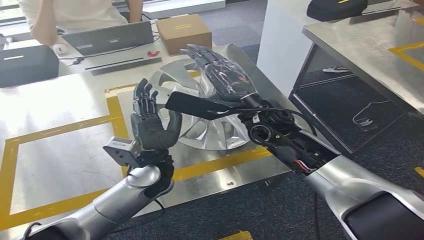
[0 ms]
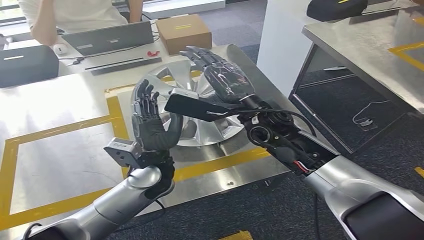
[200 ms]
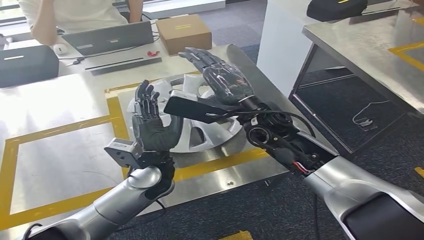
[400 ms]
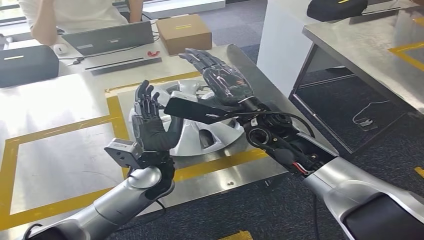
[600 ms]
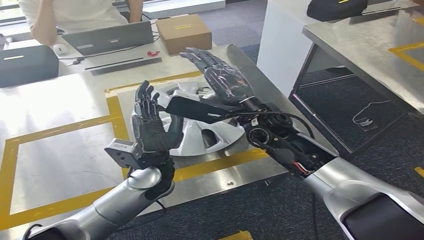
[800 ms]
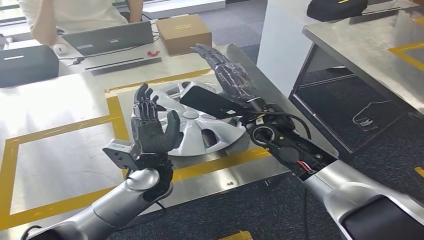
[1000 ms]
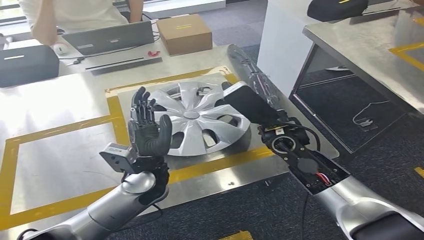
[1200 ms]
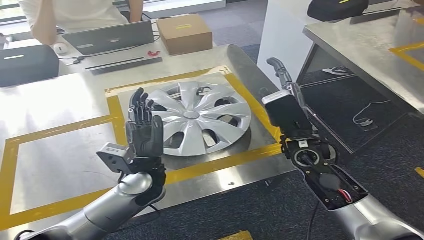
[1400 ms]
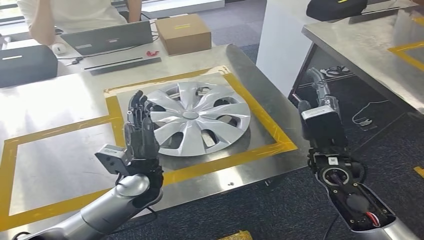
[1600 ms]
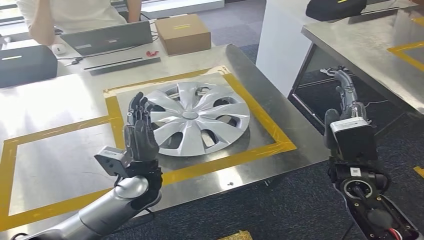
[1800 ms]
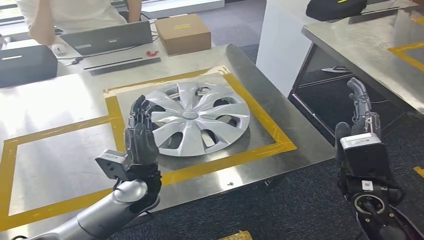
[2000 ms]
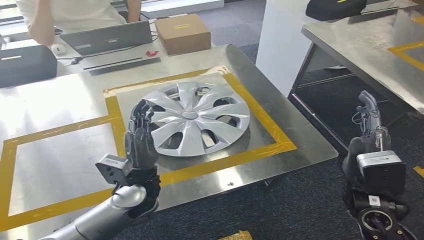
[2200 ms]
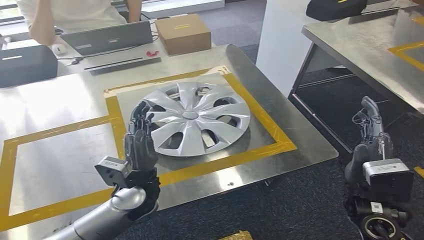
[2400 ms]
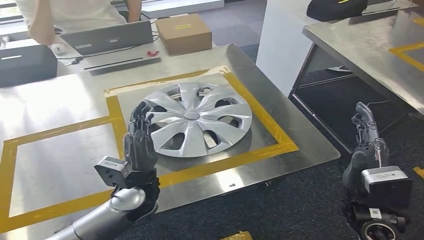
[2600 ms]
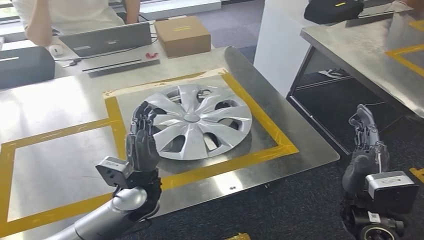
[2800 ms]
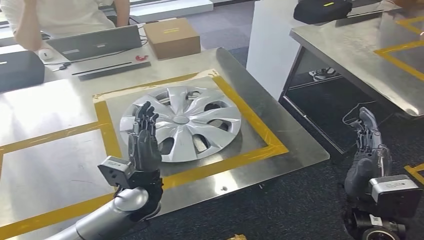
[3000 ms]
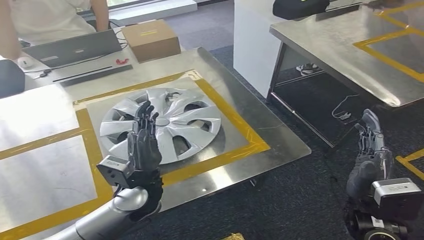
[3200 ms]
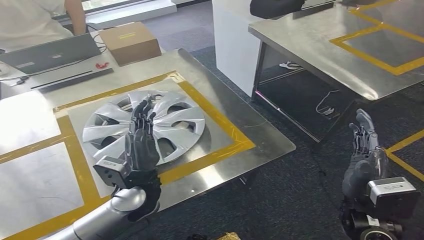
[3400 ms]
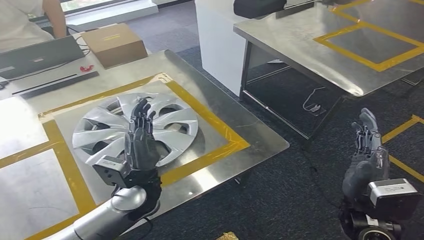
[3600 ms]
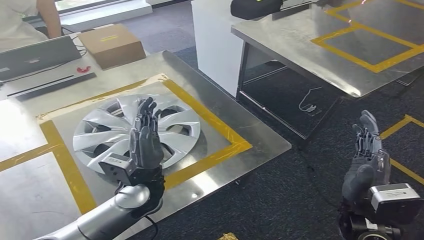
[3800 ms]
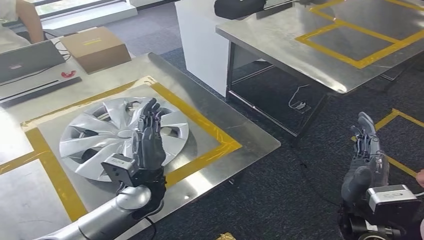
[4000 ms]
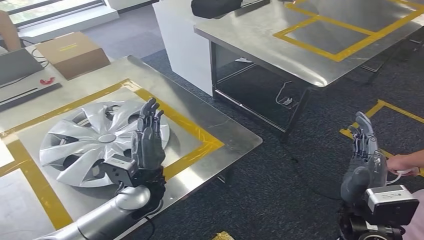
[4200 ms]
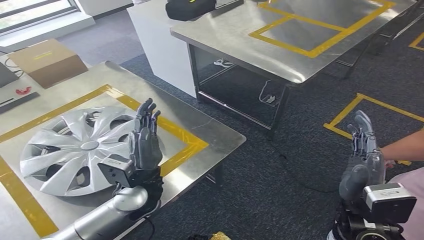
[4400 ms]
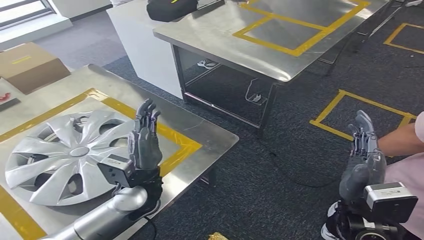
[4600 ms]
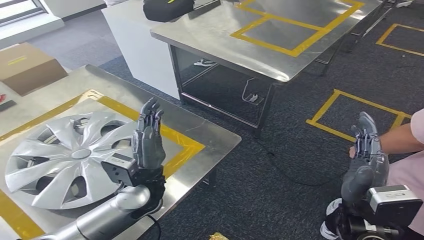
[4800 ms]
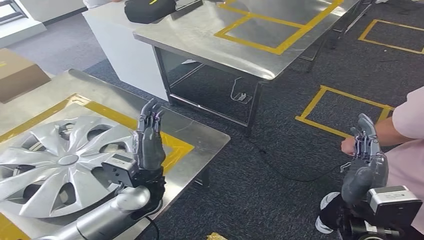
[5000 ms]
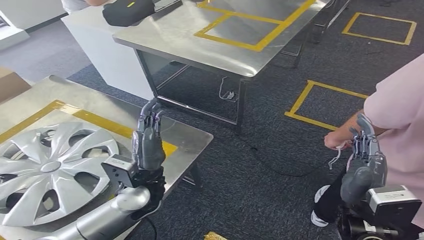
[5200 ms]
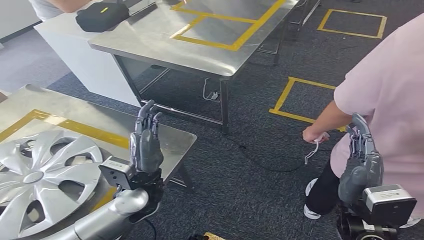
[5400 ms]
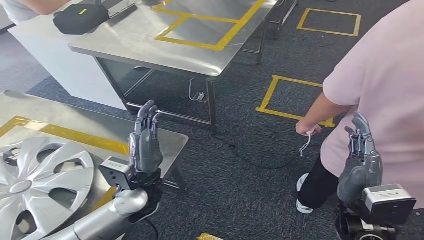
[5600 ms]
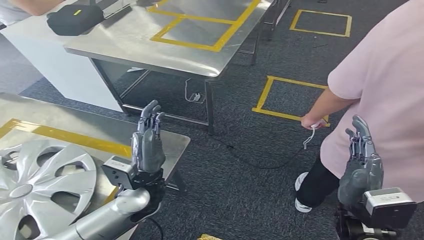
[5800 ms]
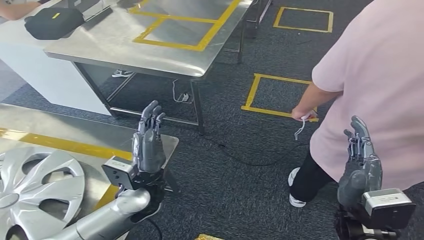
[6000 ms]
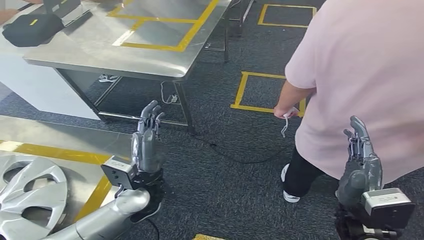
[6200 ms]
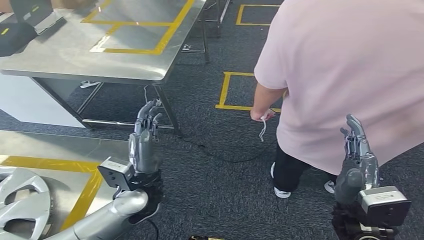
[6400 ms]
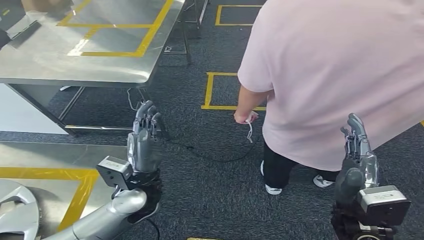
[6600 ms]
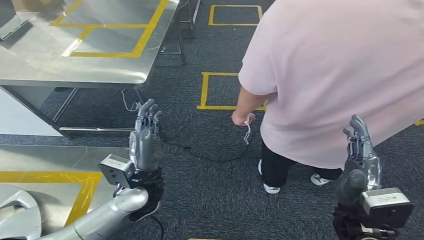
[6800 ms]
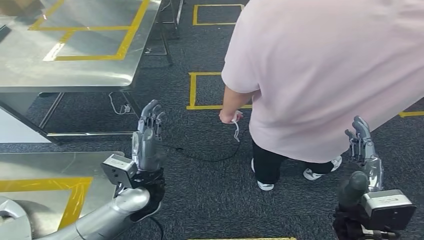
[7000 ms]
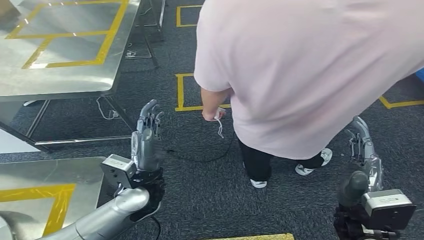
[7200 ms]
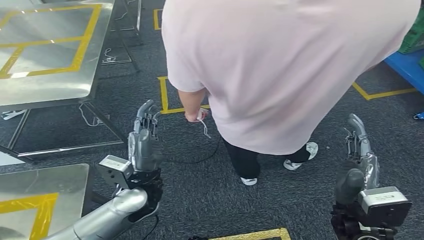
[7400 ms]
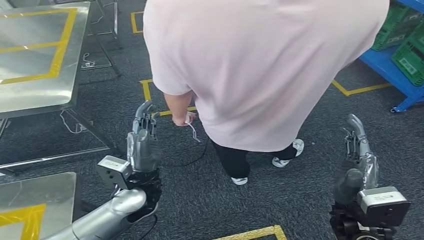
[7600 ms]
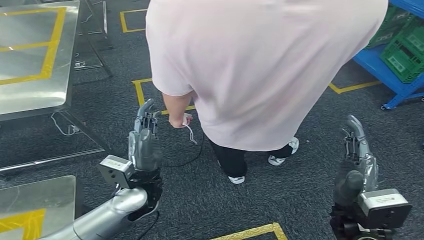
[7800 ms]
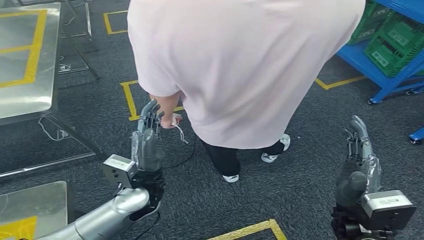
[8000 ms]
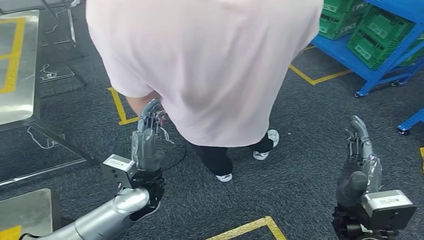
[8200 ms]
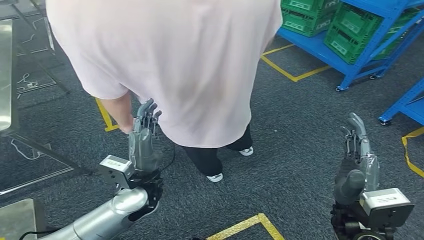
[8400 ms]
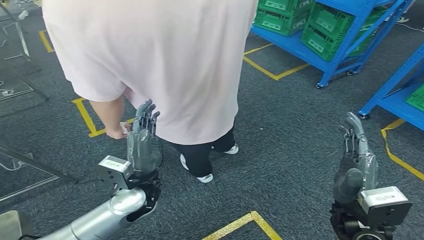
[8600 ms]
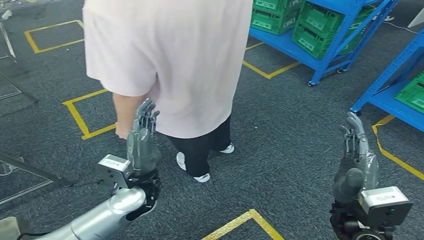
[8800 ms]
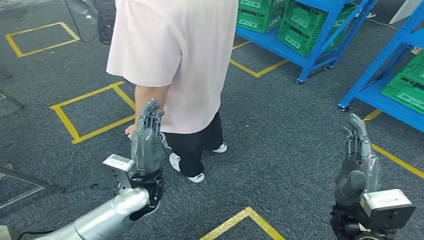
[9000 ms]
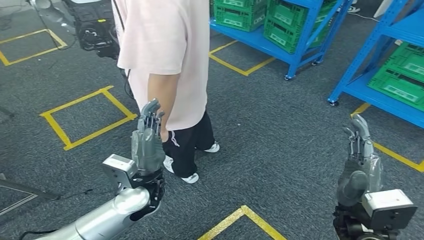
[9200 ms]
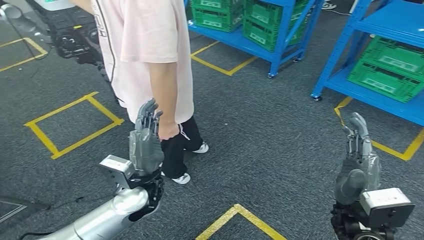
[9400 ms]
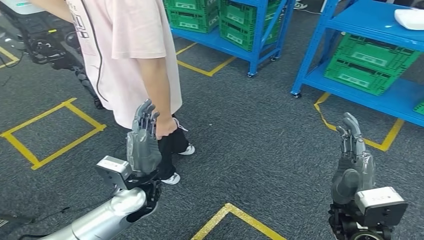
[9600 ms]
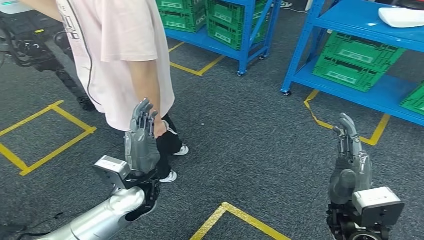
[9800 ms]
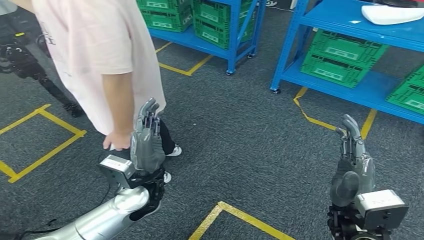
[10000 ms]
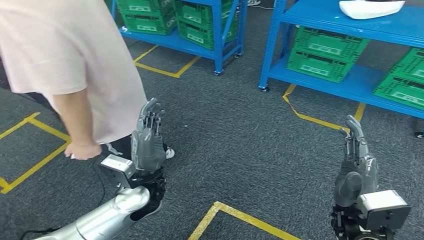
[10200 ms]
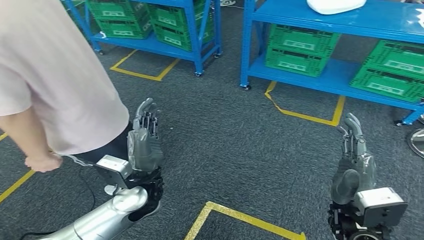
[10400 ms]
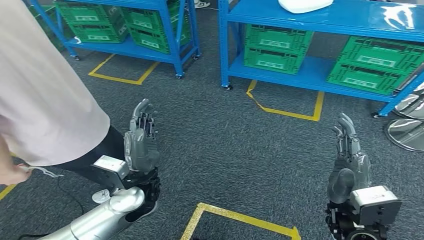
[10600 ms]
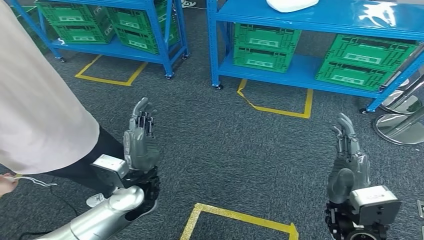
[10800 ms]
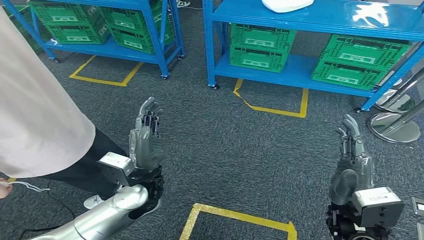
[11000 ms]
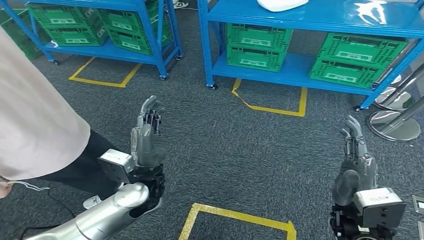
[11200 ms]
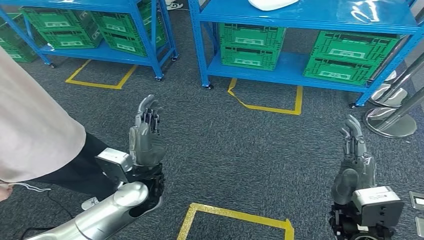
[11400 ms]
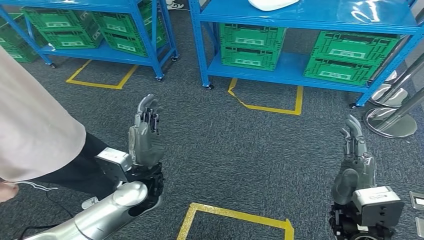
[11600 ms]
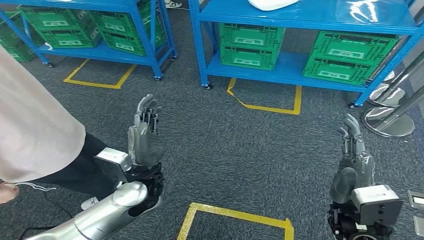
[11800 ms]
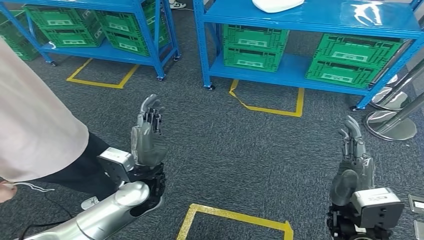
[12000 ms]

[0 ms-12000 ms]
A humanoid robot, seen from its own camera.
Step, 0 ms to 2400 ms: Insert the small component into the corresponding slot on the workbench.

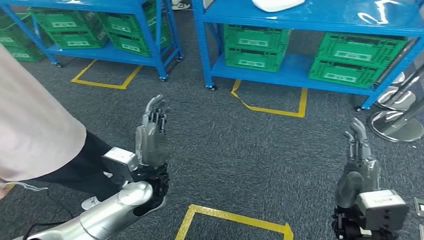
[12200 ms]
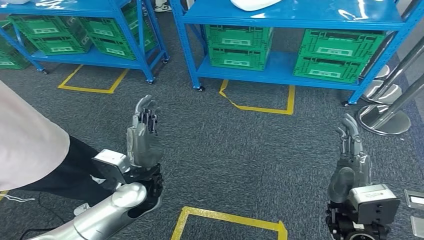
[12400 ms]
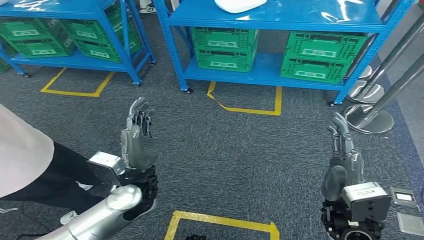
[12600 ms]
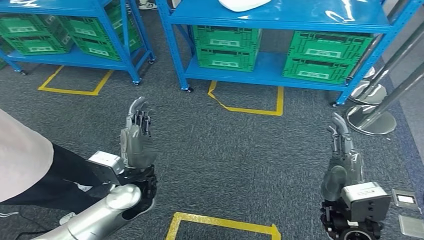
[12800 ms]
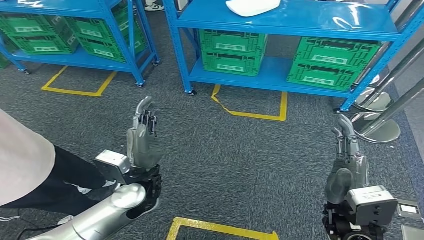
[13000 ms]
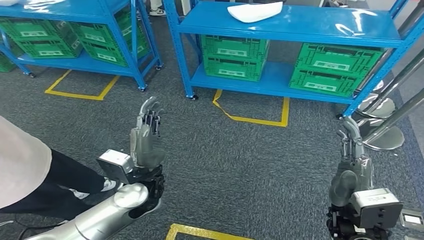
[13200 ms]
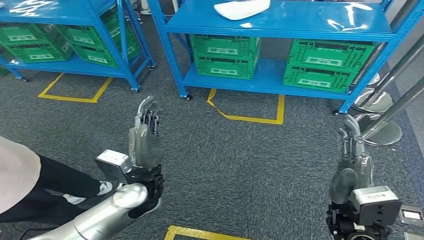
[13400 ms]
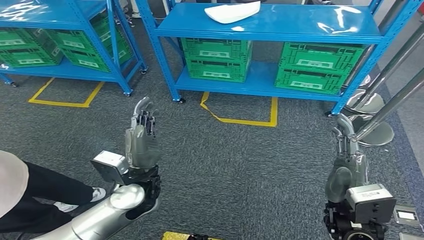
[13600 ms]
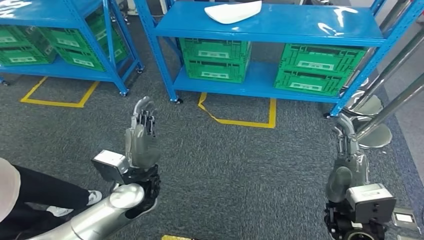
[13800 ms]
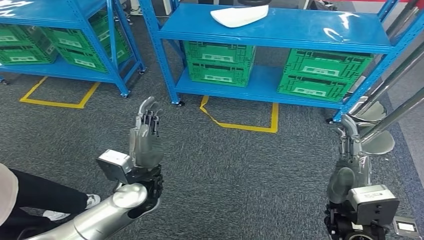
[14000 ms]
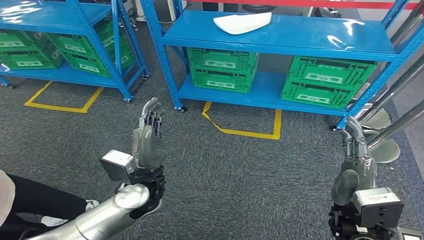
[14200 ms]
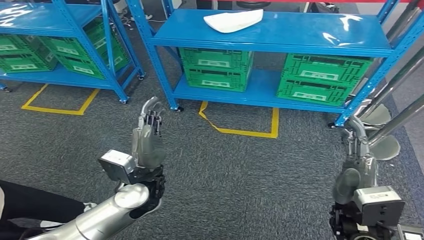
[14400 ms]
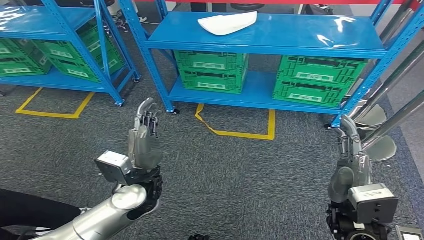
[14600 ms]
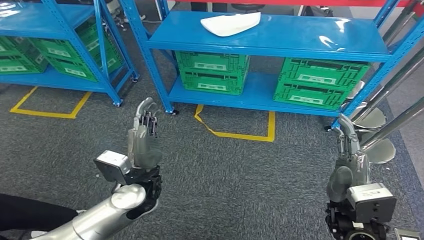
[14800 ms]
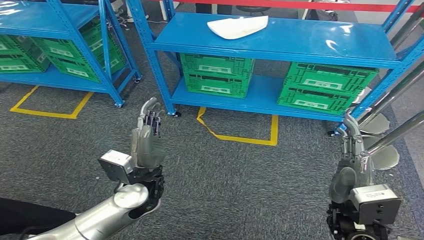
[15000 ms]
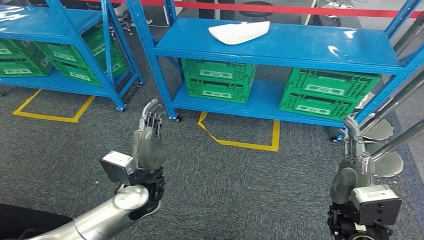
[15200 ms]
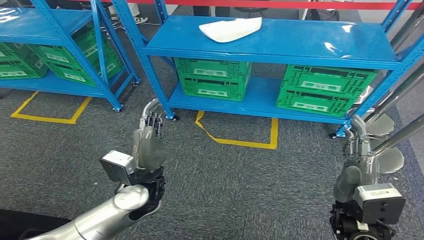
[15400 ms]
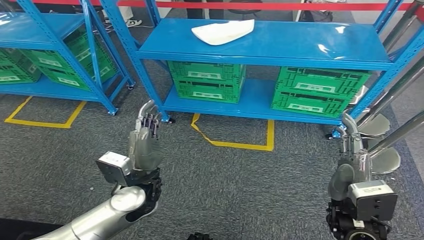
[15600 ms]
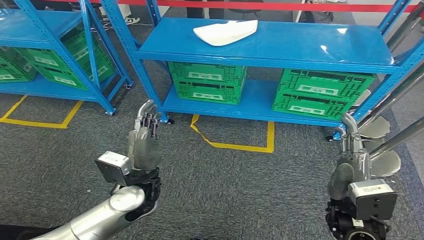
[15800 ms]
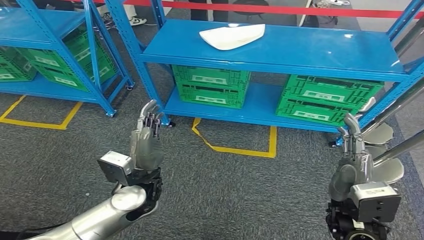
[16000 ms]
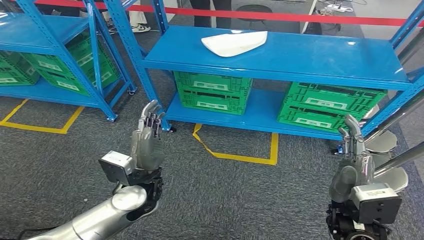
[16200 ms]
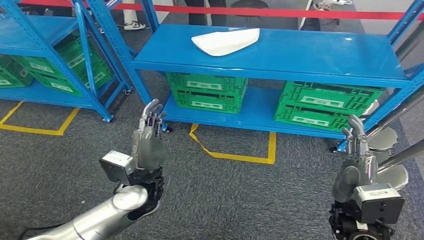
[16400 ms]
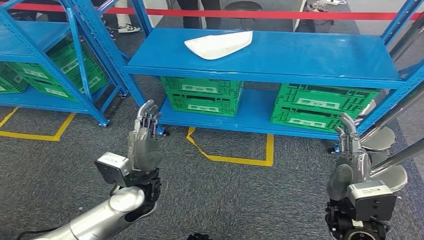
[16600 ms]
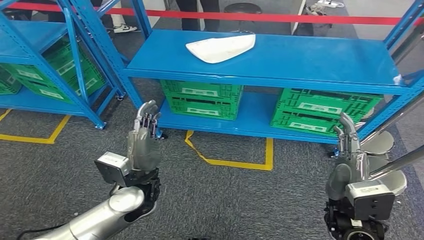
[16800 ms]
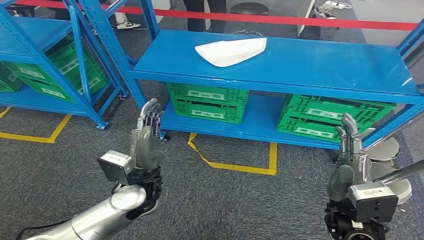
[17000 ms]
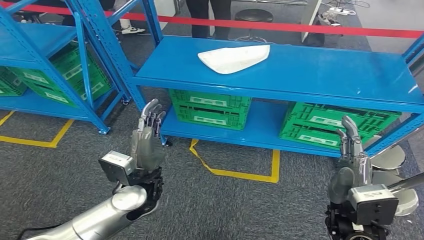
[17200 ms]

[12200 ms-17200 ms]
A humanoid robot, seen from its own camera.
Step, 12200 ms to 17200 ms: Return to the initial position at the workbench.
